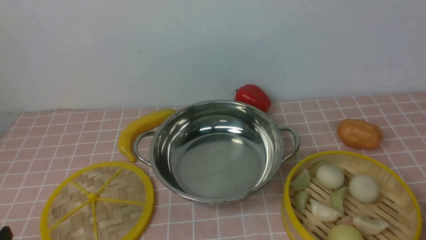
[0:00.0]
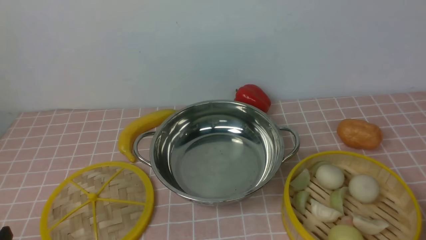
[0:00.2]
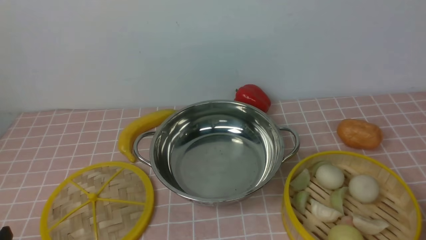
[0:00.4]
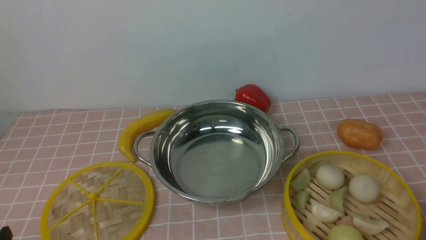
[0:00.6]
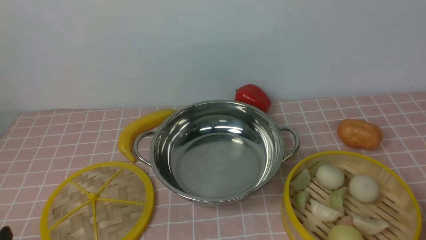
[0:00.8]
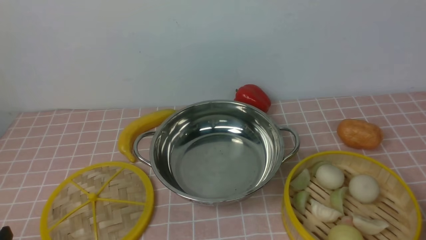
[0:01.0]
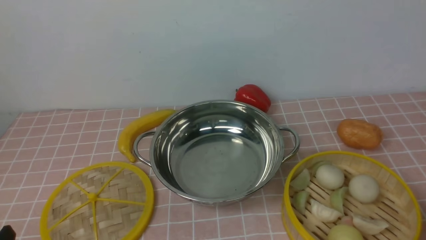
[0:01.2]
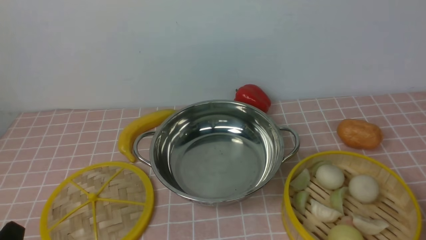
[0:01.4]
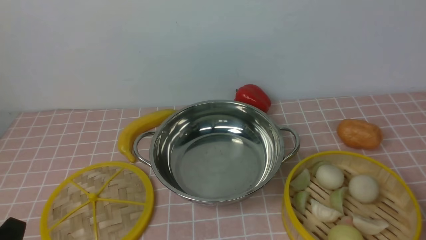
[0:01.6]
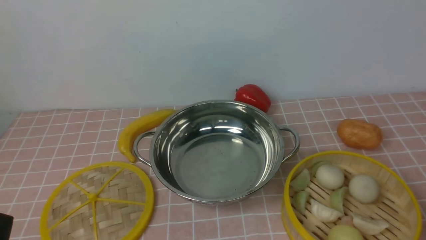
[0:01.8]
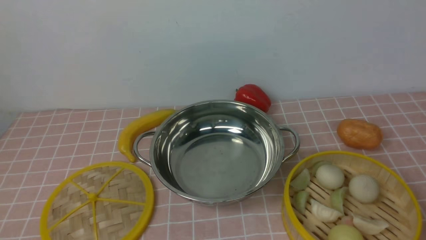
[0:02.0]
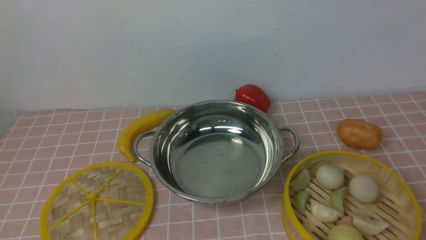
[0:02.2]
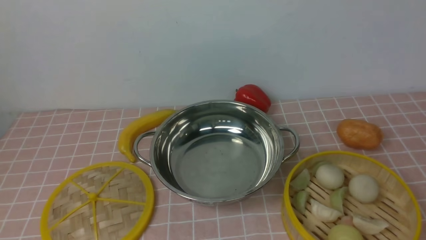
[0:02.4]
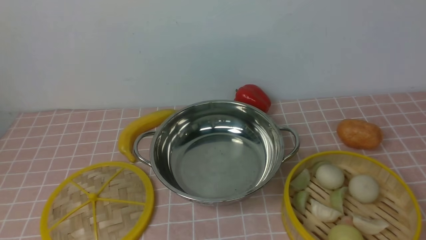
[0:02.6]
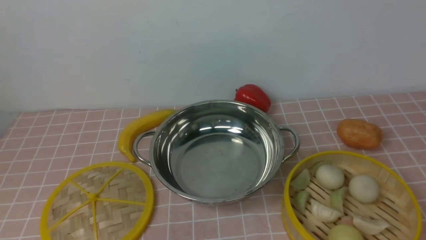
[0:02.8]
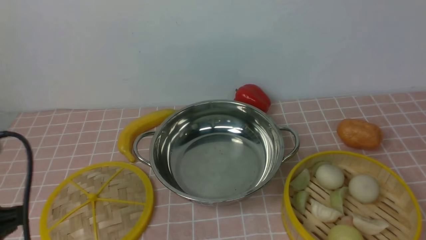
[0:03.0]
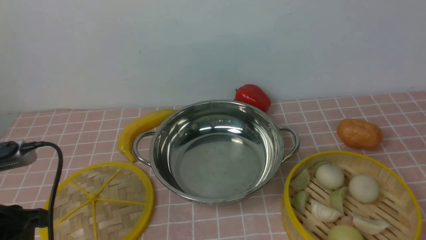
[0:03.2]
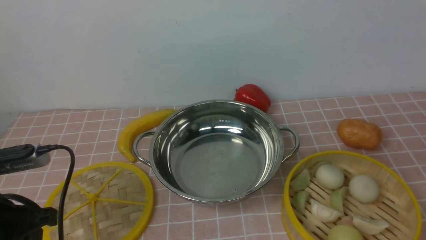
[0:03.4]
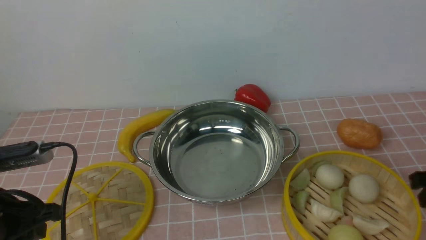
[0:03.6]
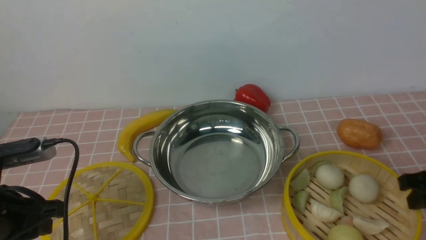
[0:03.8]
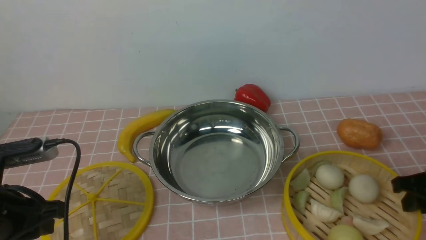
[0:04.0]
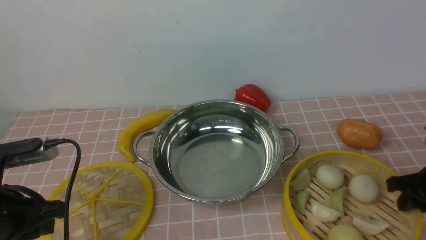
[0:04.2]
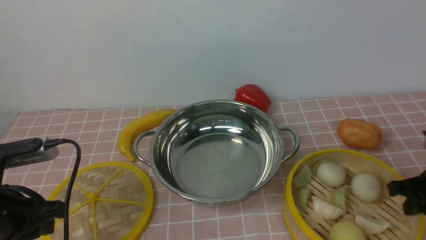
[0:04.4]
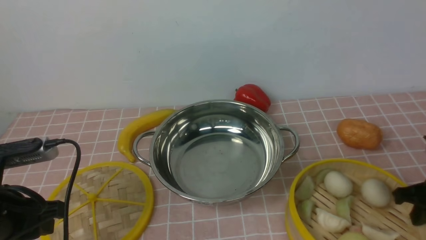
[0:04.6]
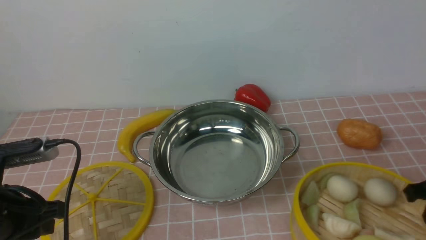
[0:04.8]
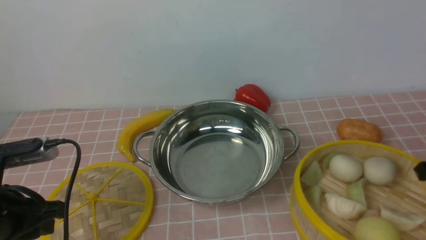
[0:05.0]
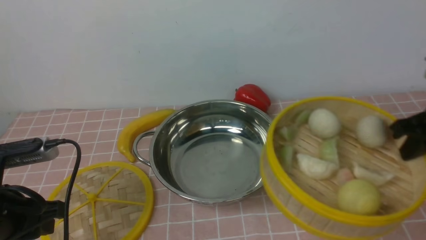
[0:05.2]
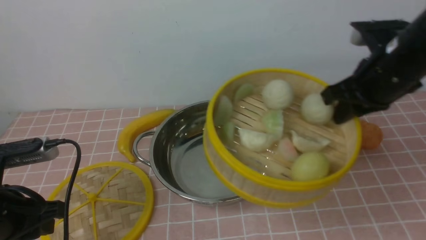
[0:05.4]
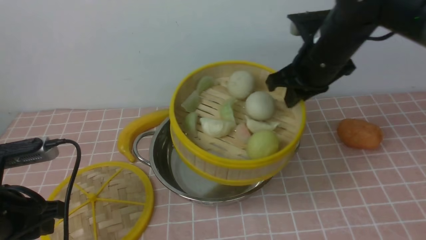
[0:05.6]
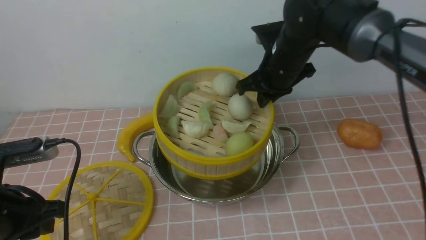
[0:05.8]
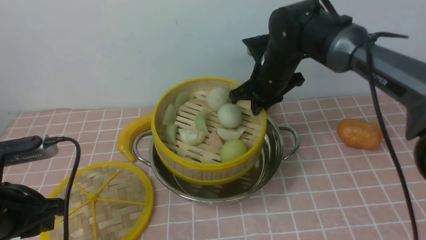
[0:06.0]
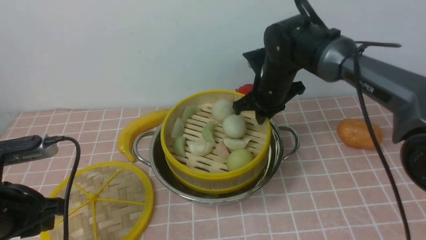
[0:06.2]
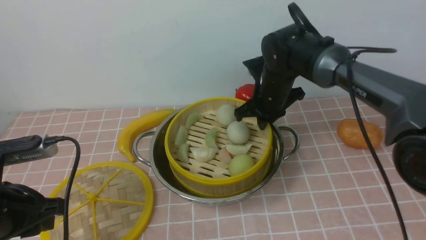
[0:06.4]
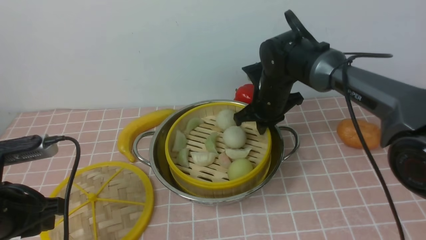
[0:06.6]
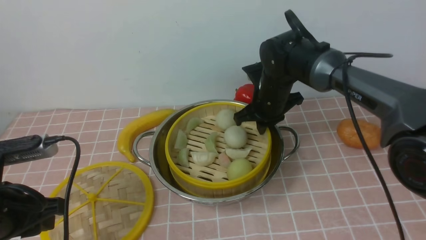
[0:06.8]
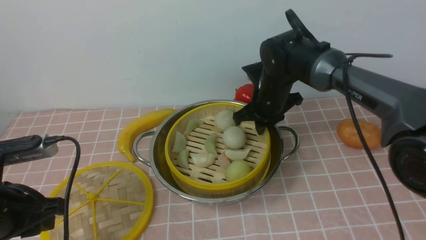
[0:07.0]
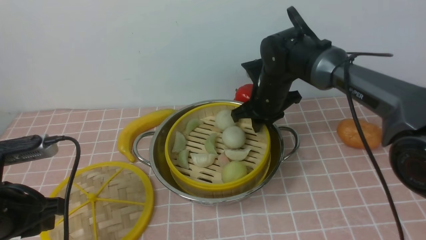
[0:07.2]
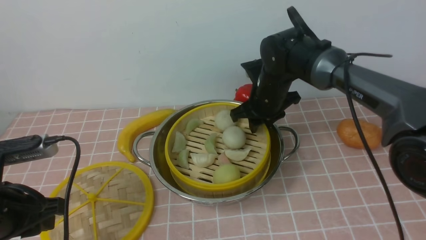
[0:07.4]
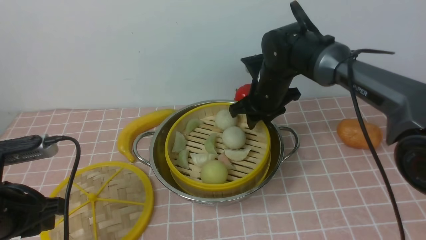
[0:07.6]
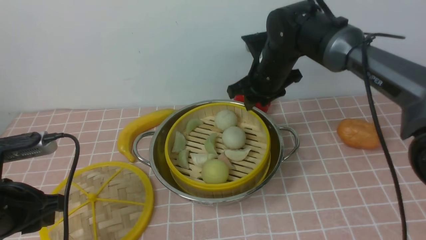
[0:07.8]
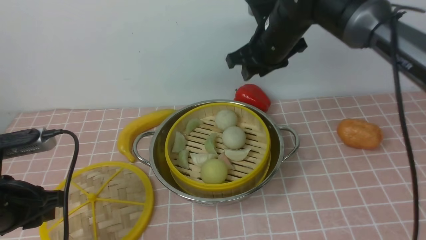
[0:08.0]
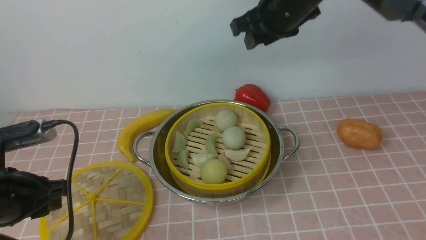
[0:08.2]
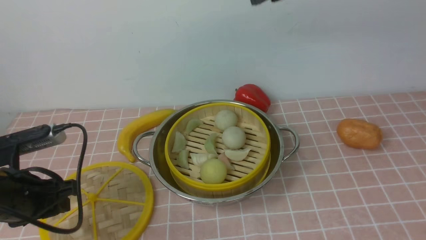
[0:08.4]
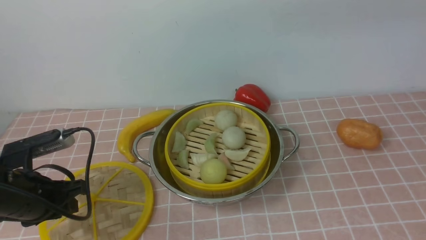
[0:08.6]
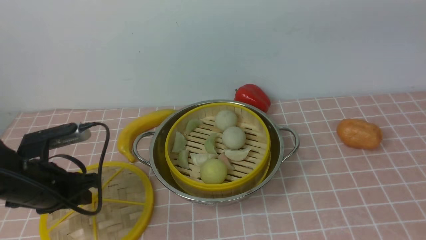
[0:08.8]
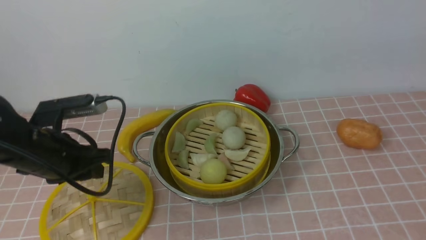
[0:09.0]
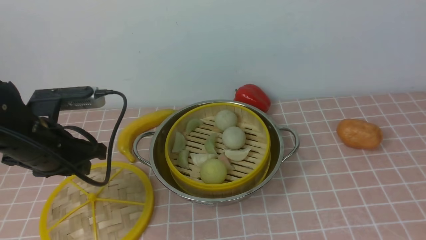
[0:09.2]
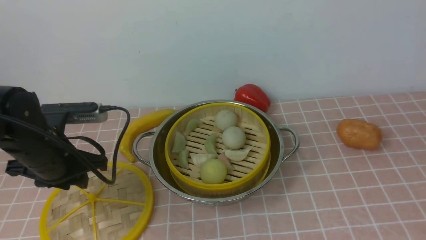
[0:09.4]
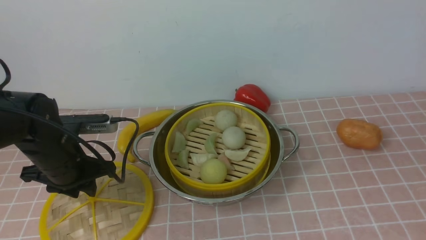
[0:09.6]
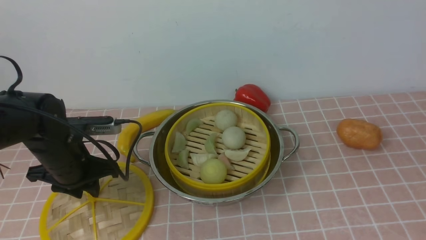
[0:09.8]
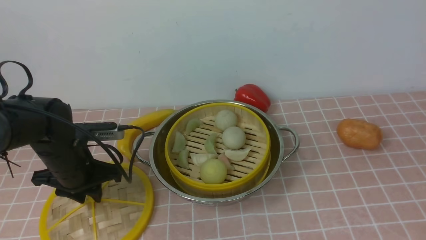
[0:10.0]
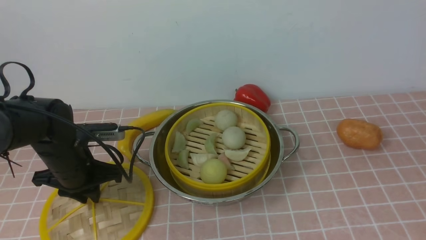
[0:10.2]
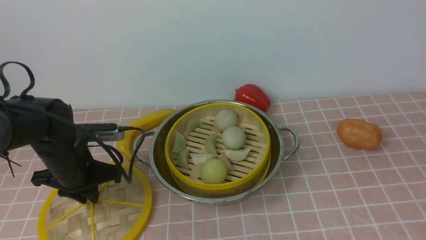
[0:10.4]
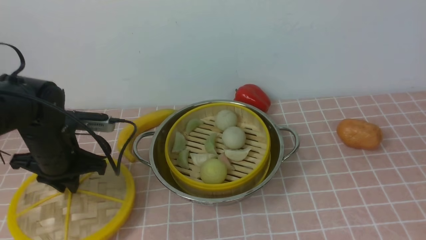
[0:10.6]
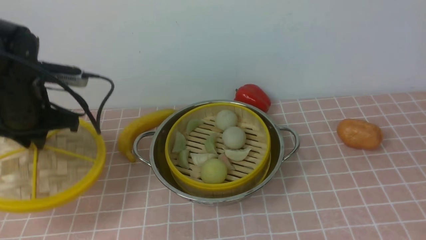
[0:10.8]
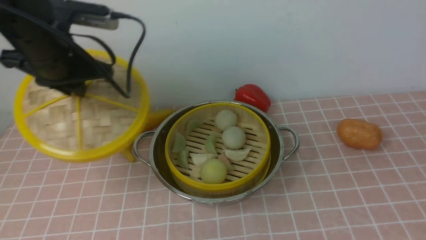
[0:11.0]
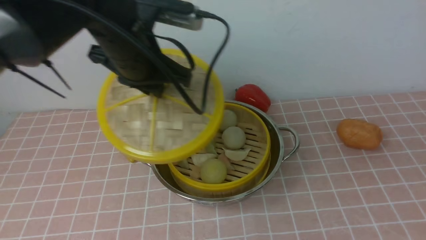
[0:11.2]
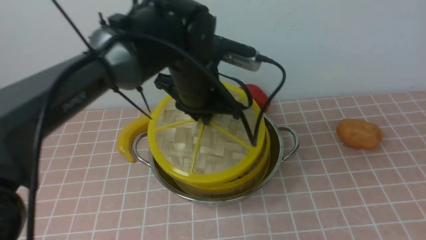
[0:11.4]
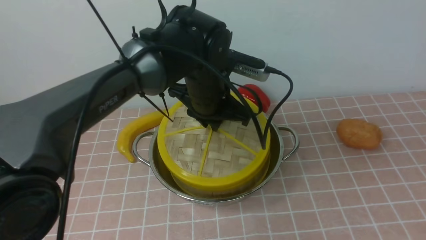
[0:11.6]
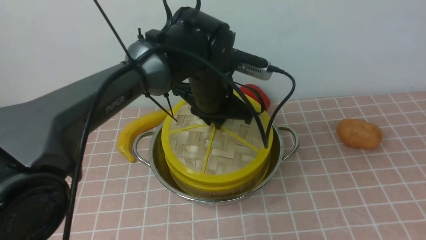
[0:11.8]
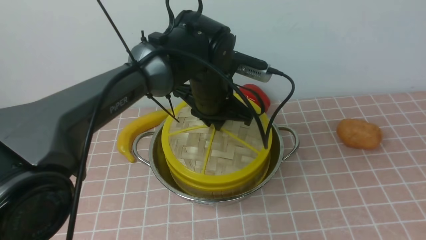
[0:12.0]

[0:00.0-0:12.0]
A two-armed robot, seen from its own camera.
Task of the whole recording: place the steamer in the pot on the pink tablecloth, and put the lid on the steamer.
Step, 0:00.0 to 0:04.8: use the right arm to lift the steamer closest to it.
Step, 0:05.0 to 0:07.6: use the right arm to put the steamer into the iron steamer pot in the middle.
Step, 0:07.8 to 0:10.6: use the left arm to lift the lid of the steamer.
0:01.6 to 0:03.0: The left gripper heads upward and forward, covering some 10 cm.
0:03.0 to 0:04.4: The left gripper moves forward, about 5 cm, while the right gripper moves downward and forward, approximately 20 cm, and closes up.
0:04.4 to 0:06.0: The right gripper is displaced to the left and forward by roughly 30 cm.
0:06.0 to 0:07.6: The right gripper opens its fingers.
0:07.6 to 0:09.0: The left gripper moves forward, roughly 10 cm; the right gripper heads upward, backward and to the right, covering roughly 50 cm.
0:09.0 to 0:10.4: The left gripper travels downward by about 5 cm.
0:10.4 to 0:12.0: The left gripper travels to the right by approximately 25 cm.

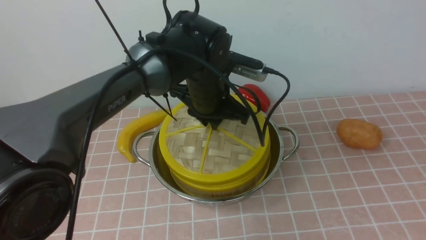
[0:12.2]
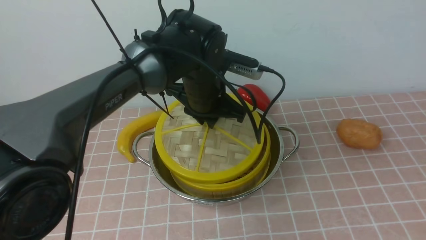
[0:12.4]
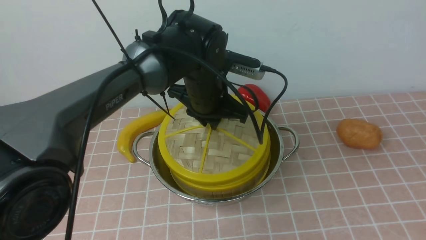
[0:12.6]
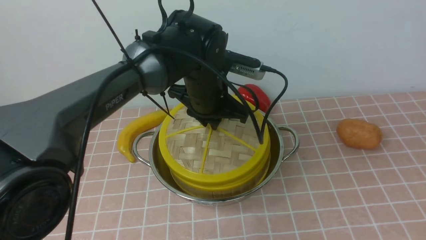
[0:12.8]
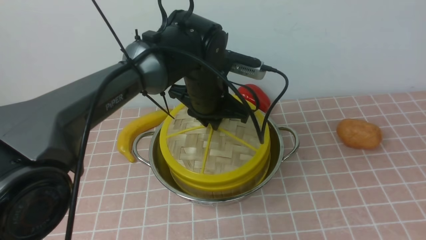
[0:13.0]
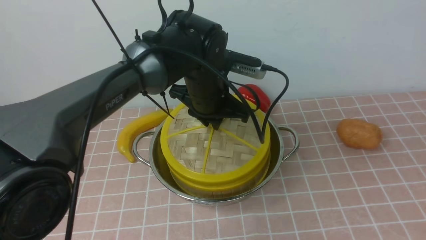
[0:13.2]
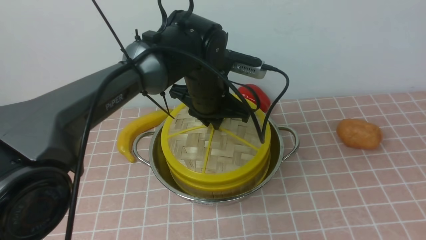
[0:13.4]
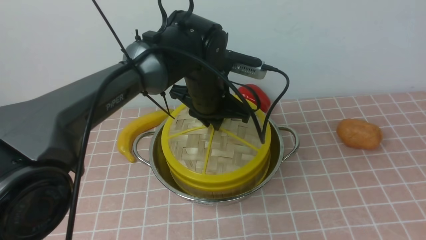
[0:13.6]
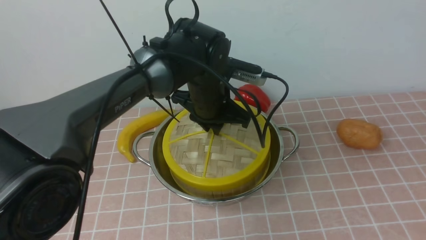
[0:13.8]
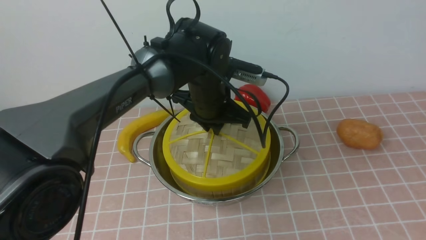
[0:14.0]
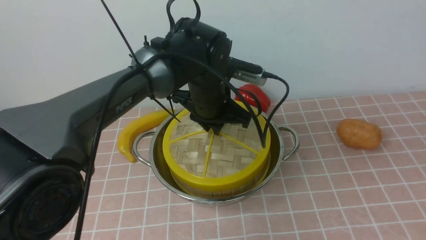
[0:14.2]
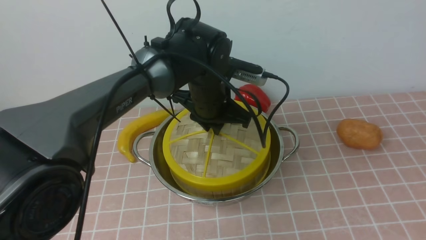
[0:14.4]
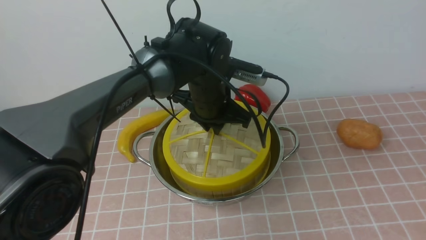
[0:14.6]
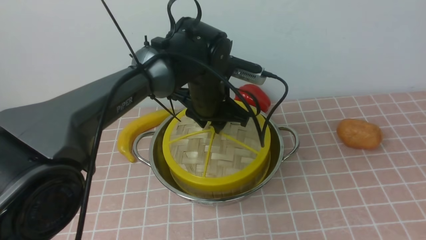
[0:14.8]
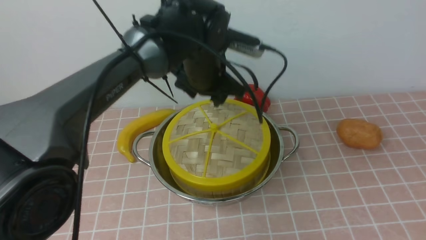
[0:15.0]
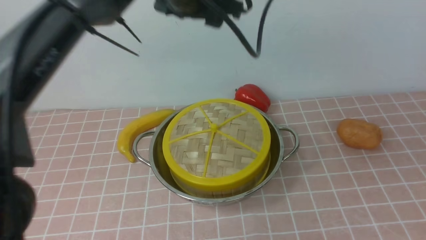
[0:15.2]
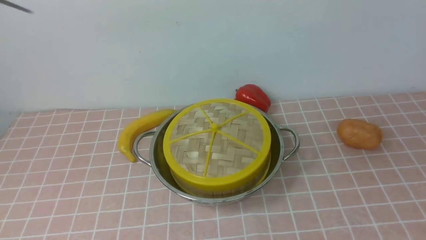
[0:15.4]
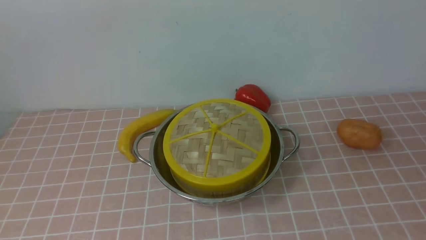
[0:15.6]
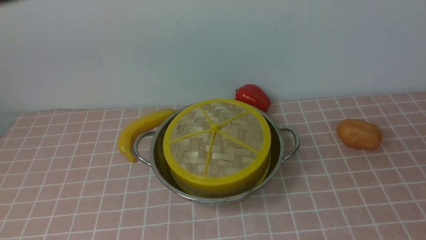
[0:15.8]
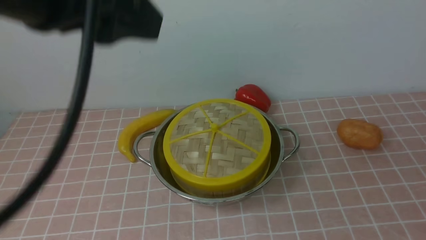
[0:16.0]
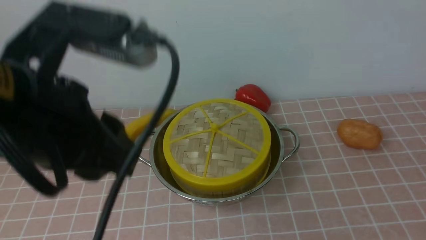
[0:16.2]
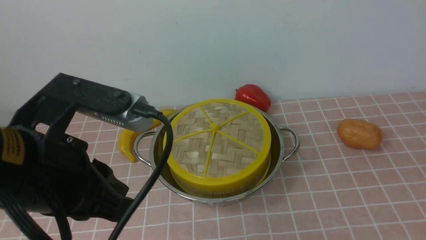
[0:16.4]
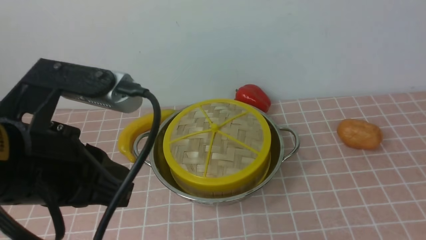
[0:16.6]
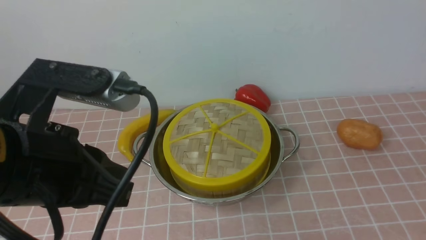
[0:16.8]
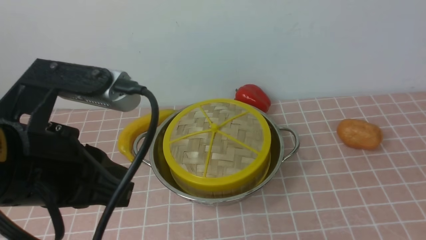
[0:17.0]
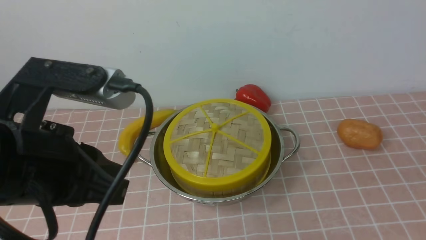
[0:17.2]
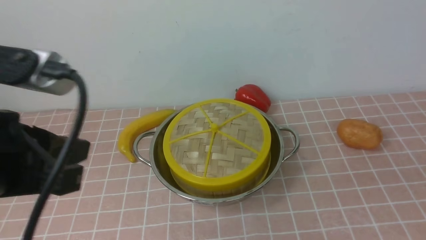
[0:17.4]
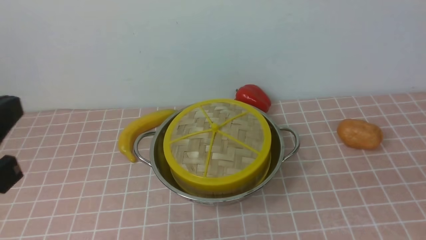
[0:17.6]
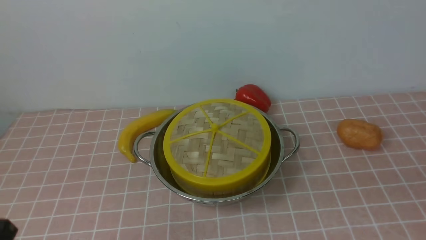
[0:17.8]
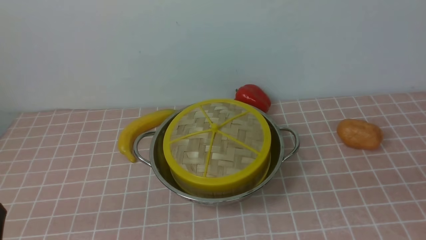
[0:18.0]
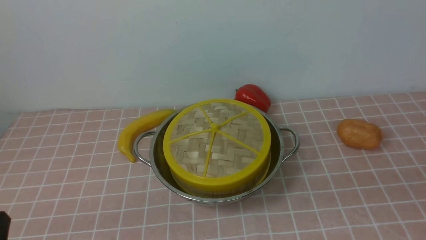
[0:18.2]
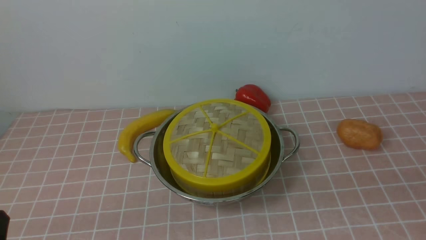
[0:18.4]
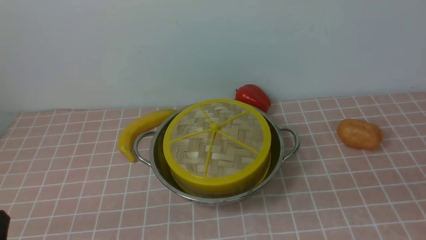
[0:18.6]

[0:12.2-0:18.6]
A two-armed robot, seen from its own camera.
Task of the whole recording: place the steamer in the pot on the pink tablecloth, and put the lid on the steamer.
Step, 0:12.2 to 0:14.8: use the left arm to place the steamer lid on the steamer.
0:12.2 to 0:13.8: Both grippers stay about where they are.
0:13.8 to 0:15.4: The left gripper moves upward, some 25 cm, and opens up.
0:15.4 to 0:17.0: The right gripper goes some 5 cm downward, while the left gripper travels backward, downward and to the left by some 25 cm, and closes.
0:17.0 to 0:18.6: The left gripper heads downward, to the left and backward, covering roughly 20 cm.
